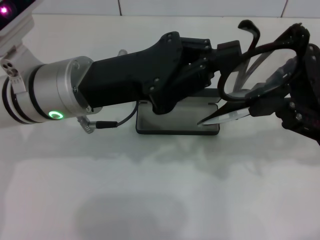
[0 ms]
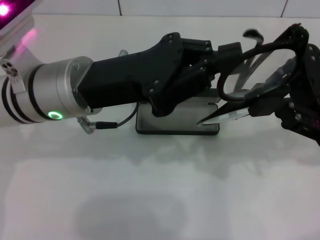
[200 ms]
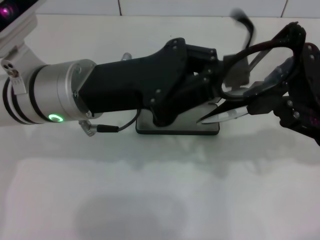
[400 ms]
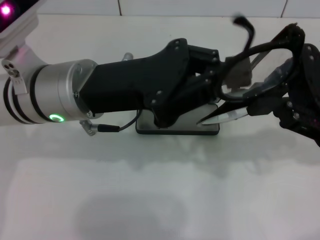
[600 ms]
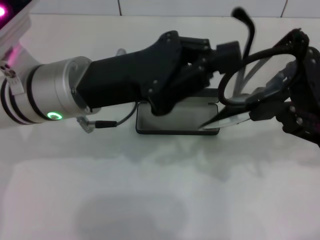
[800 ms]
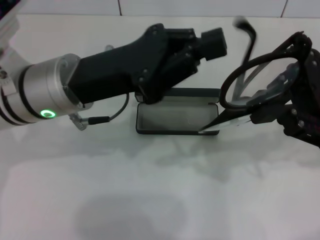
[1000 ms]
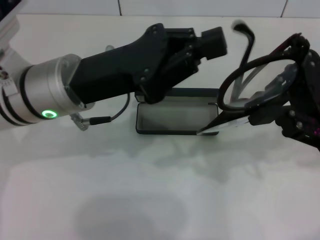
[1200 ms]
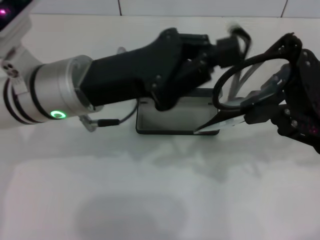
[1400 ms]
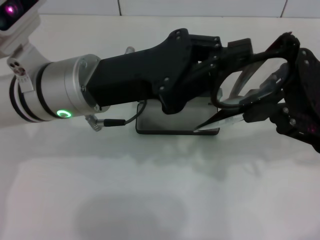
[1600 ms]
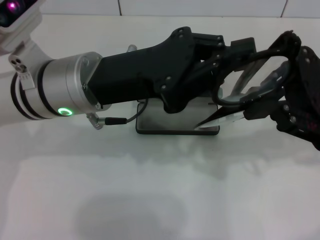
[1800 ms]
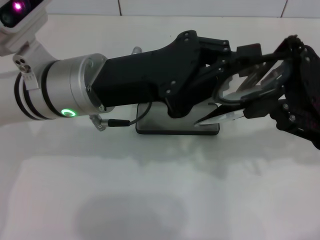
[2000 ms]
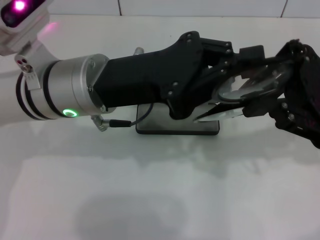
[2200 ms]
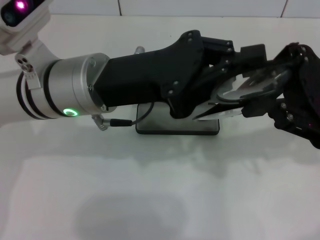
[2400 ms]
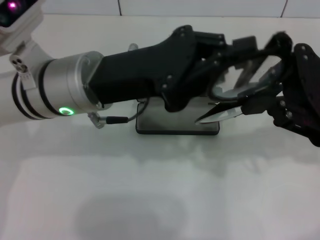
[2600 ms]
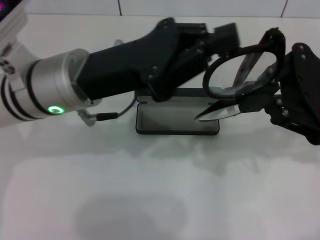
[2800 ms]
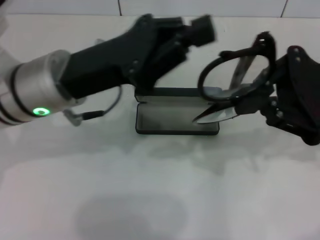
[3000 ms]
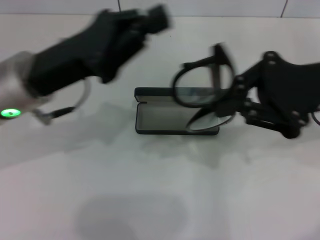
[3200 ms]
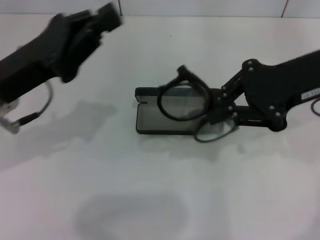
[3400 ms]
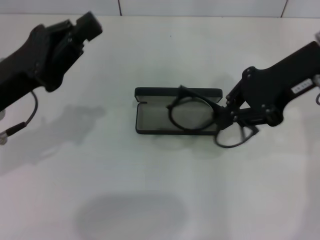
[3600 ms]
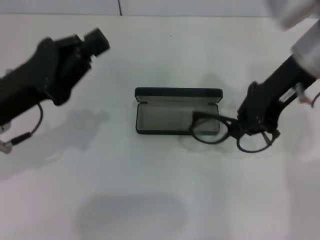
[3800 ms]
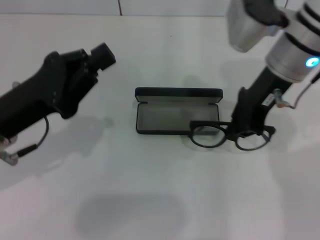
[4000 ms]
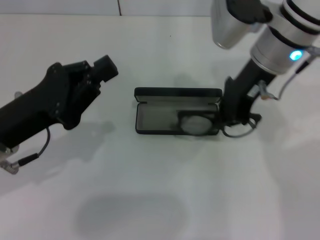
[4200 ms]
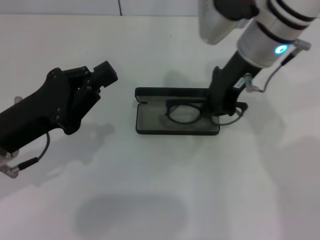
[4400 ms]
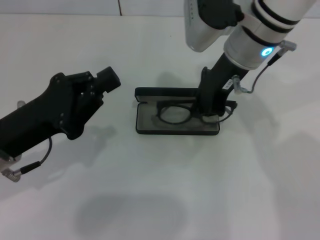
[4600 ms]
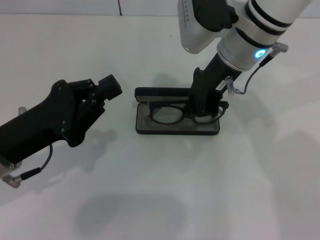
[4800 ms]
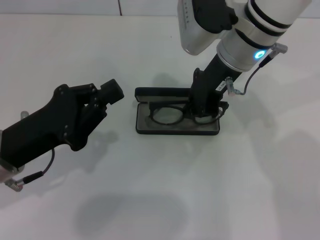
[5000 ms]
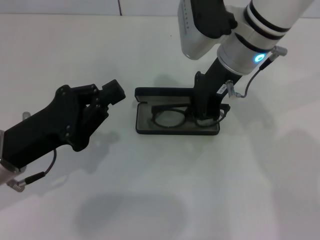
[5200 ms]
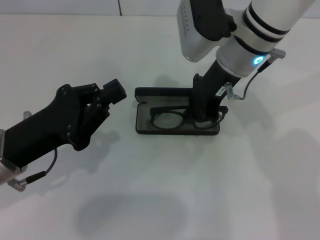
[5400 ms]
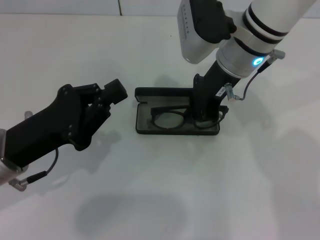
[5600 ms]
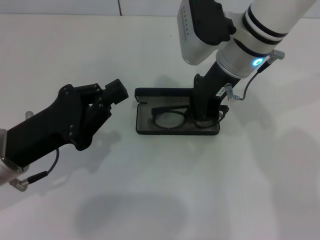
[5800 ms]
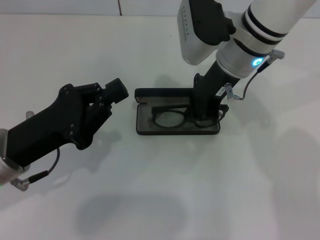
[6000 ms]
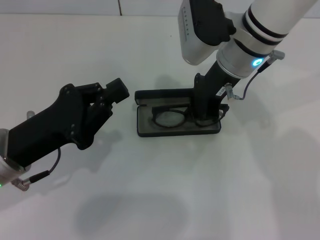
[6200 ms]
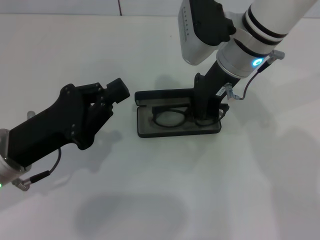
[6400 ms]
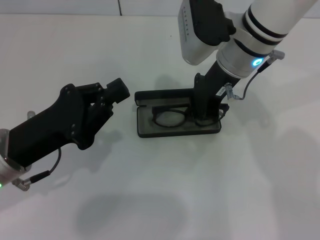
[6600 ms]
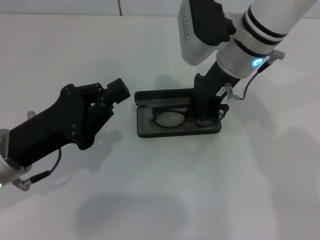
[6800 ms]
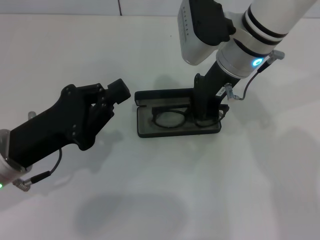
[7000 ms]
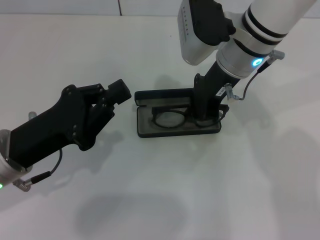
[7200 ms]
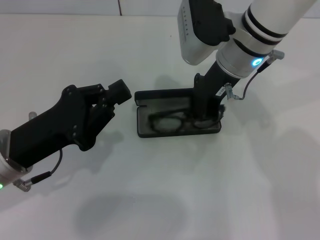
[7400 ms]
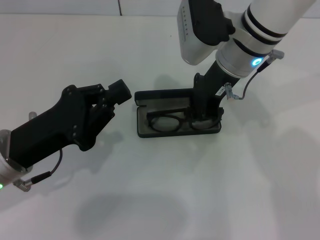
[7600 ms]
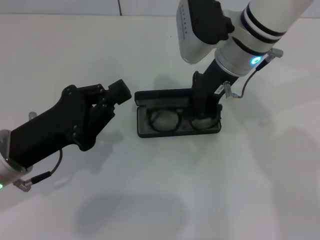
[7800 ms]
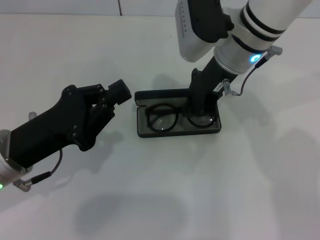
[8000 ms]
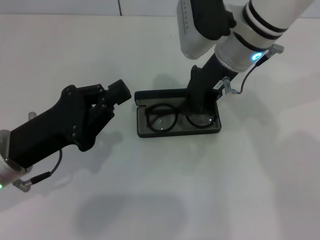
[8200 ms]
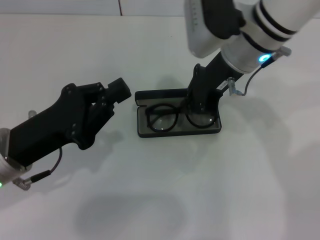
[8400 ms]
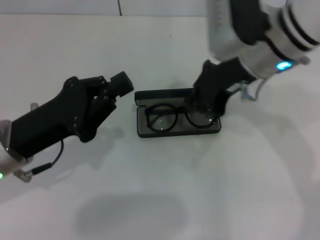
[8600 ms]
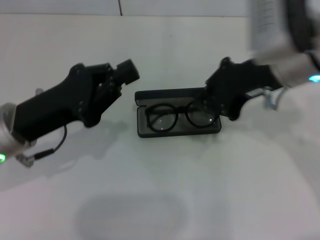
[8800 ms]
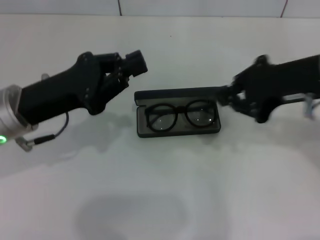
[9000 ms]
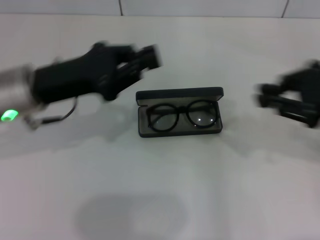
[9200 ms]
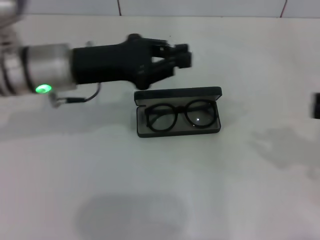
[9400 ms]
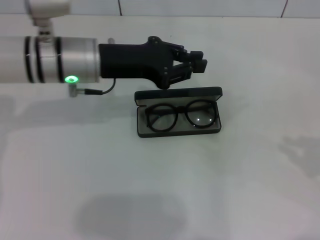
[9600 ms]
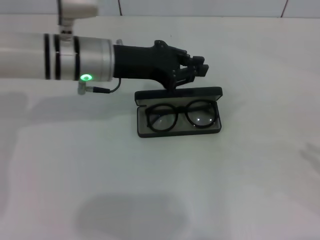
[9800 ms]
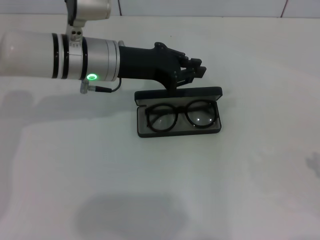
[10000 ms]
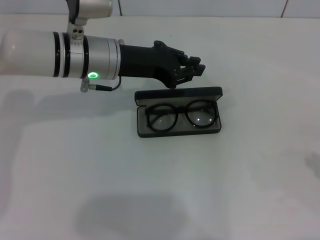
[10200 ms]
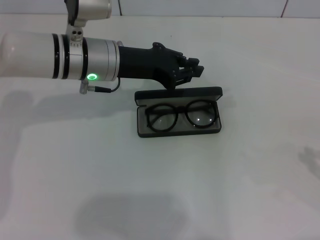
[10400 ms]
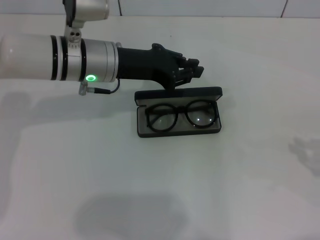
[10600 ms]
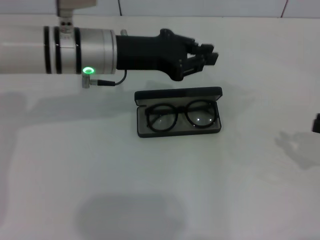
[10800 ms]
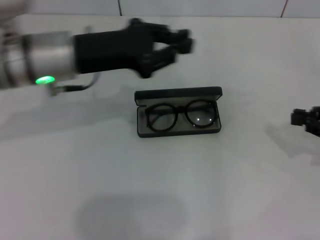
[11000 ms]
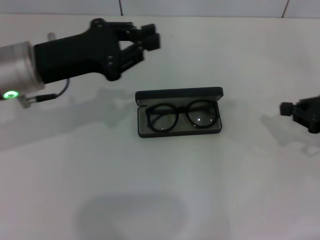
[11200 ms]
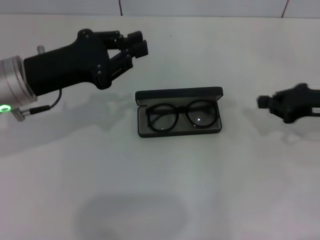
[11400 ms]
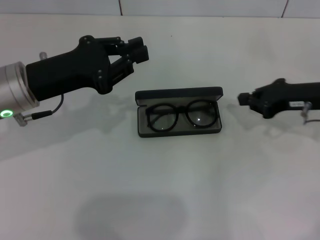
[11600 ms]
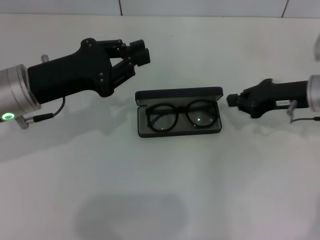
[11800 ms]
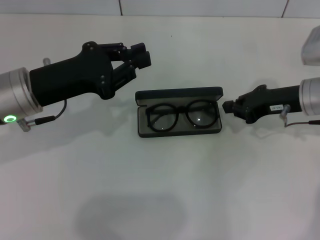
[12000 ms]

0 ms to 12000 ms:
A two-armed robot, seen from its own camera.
Step, 0 ms to 2600 ms: Fold the frame with your left hand.
Step, 3000 ms to 8400 ms: Put the glasses into the case with your right hand.
0 ms to 1600 ms: The grippers make only small movements.
3000 ms to 4400 ms: The right gripper is displaced to the left and forward by approximately 15 cm. The left gripper shifts roughly 10 cm to the left, downward and backward.
6000 ms to 7600 ms: Both grippers stay about where they are.
7600 ms to 9000 ms: The right gripper heads to the right and backward, covering some 15 cm. The left gripper ends up some 5 cm from where it was.
9000 ms to 10400 ms: The left gripper travels forward and to the right by some 15 cm, while the right gripper is displaced to the right, downward and backward by some 25 cm.
10400 ms to 12000 ms: The right gripper heads forward and to the left, covering roughly 25 cm, while the left gripper travels to the left and backward by approximately 10 cm.

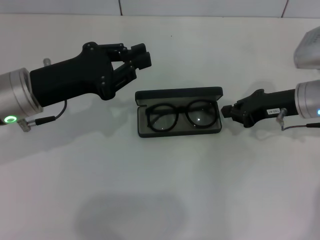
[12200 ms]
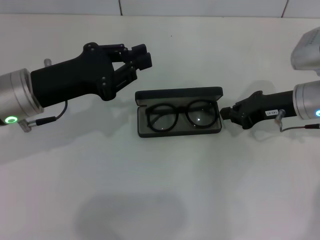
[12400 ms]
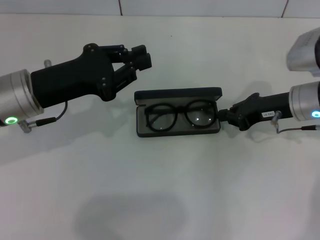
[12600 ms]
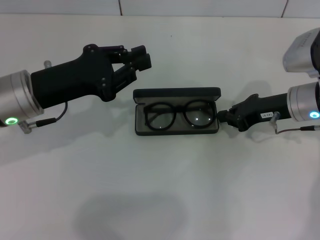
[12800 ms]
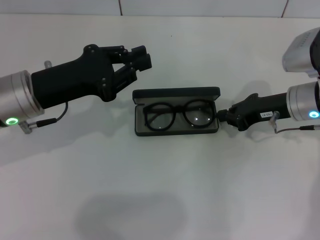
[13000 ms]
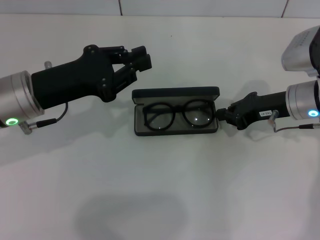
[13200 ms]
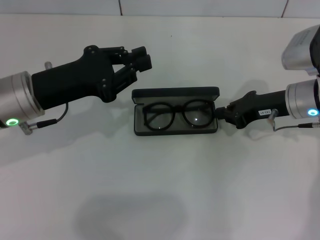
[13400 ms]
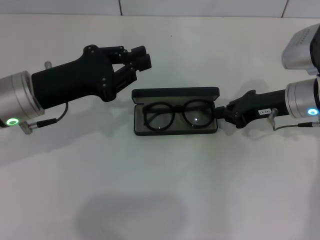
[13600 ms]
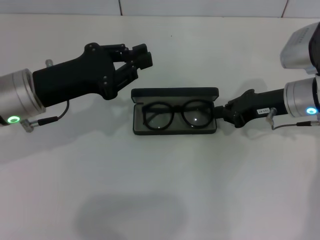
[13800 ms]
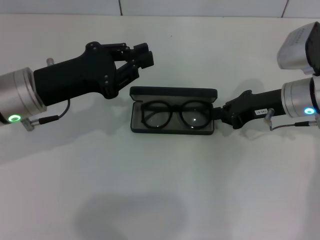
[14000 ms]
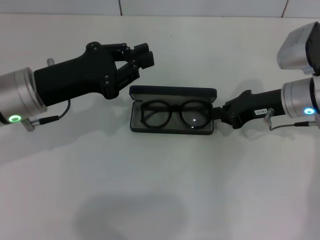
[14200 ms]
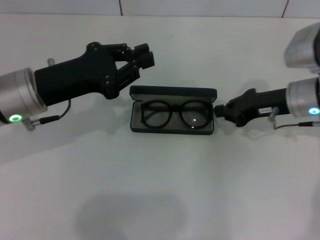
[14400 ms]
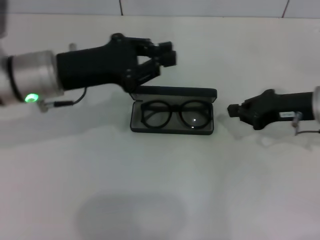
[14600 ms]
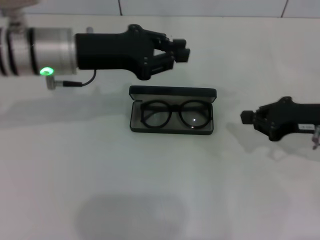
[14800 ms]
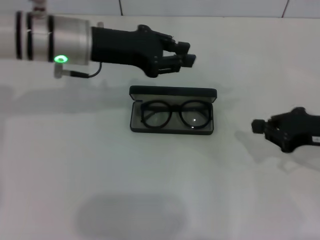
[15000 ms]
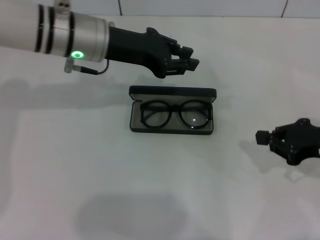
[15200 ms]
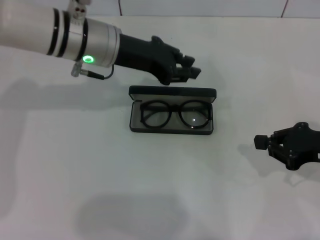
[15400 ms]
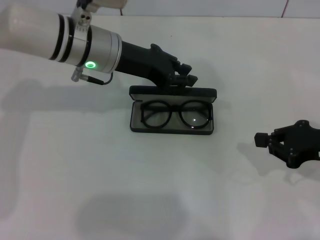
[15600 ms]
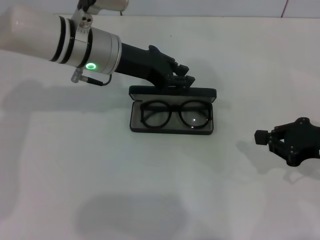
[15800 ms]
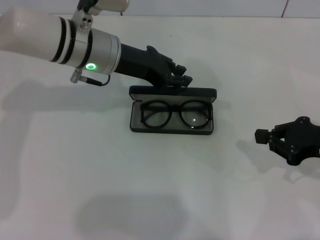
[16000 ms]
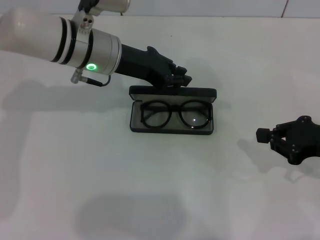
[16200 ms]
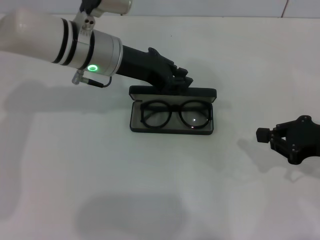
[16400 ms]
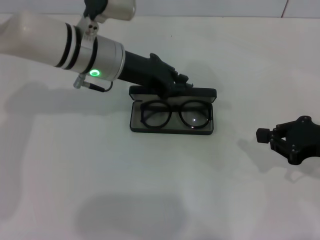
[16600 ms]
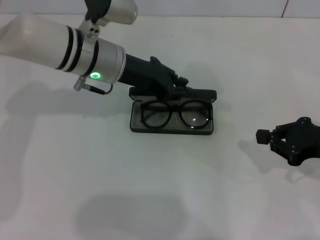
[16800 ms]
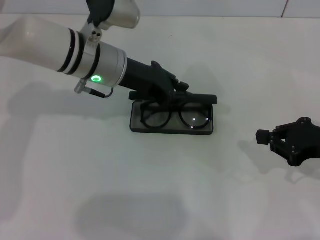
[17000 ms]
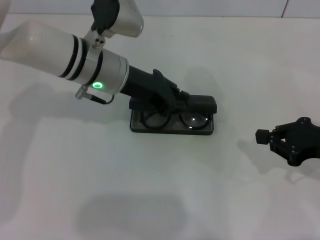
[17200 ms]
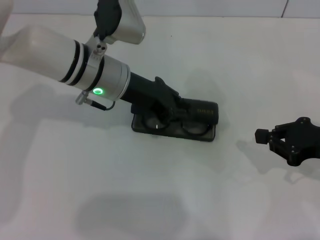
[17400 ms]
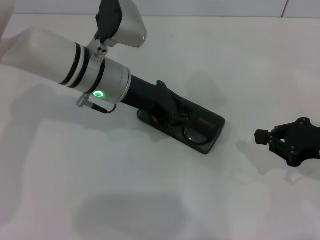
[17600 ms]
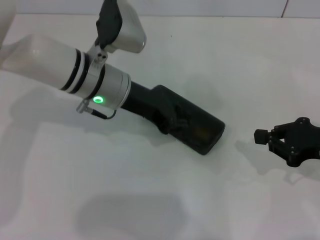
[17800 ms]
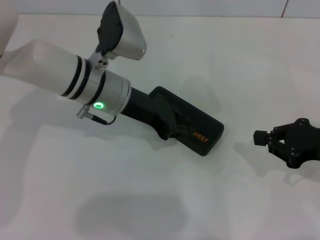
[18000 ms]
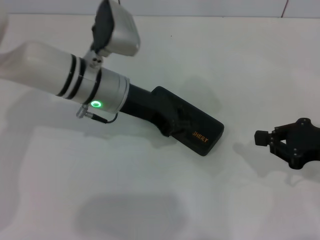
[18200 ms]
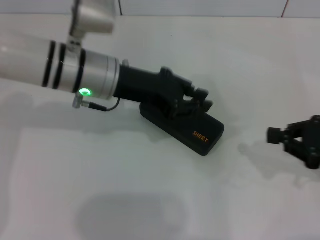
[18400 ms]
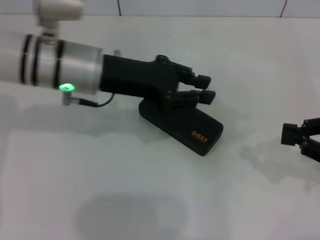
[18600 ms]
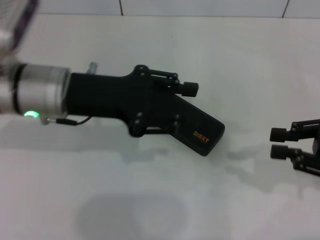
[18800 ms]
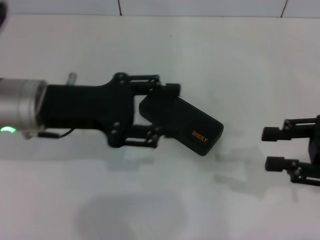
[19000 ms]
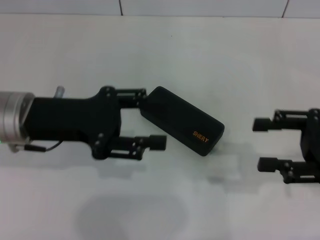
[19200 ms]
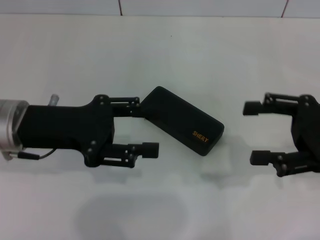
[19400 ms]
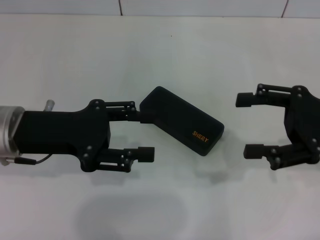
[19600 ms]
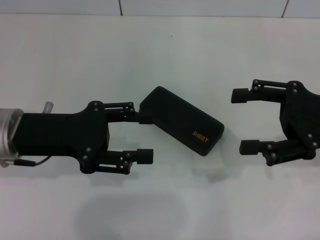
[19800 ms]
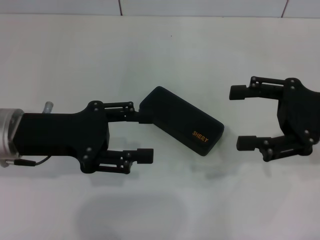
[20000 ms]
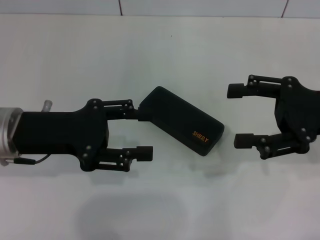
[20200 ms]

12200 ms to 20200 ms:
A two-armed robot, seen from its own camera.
Step, 12200 ms to 18200 ms: Close the glasses case with your left hand.
12200 ms to 13800 ms: There are only small adjustments of the grippers.
13800 ms to 15400 ms: The left gripper is displaced to the right and forward by roughly 15 cm; the right gripper heads backward and to the right, covering approximately 15 cm.
15400 ms to 17000 ms: There are only small adjustments of the grippers.
17000 ms to 18600 ms: The left gripper changes place by roughly 5 cm.
18600 ms to 20200 ms: The right gripper is displaced to the left by about 5 cm, and opens. Meanwhile the left gripper goes approximately 10 cm to the left and backward, and opens its fingers.

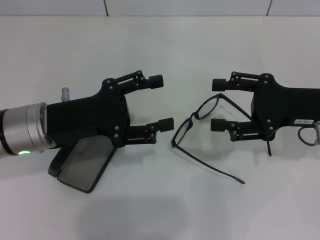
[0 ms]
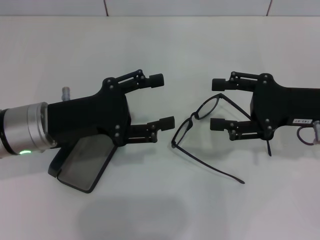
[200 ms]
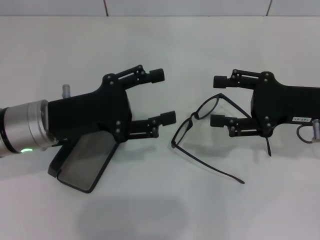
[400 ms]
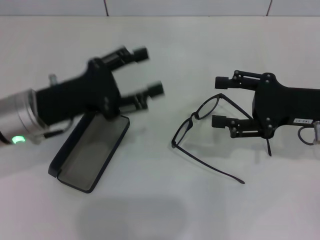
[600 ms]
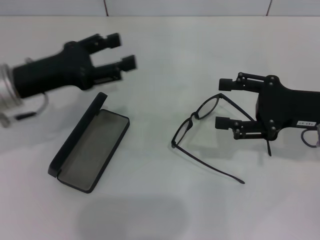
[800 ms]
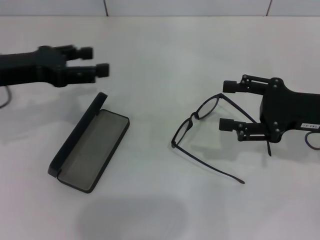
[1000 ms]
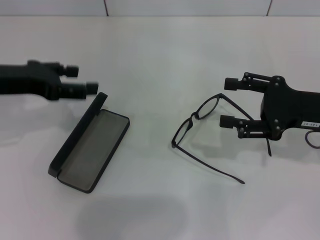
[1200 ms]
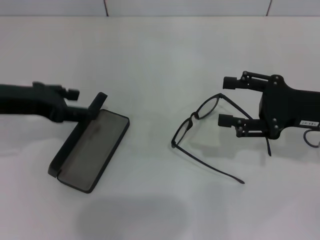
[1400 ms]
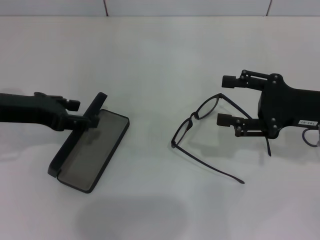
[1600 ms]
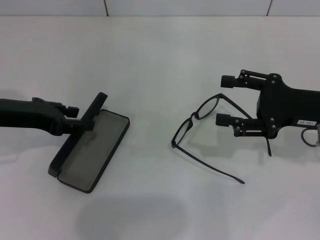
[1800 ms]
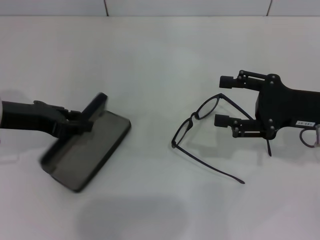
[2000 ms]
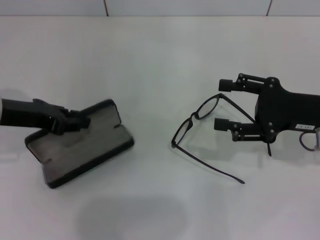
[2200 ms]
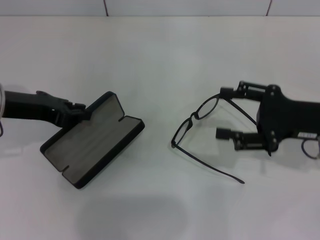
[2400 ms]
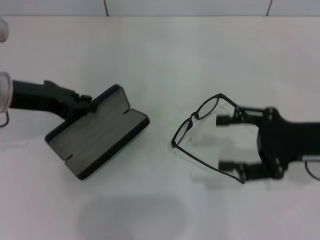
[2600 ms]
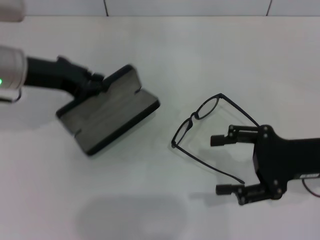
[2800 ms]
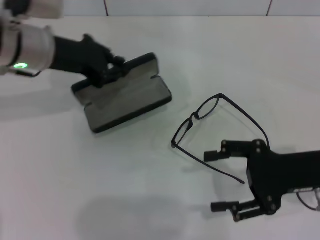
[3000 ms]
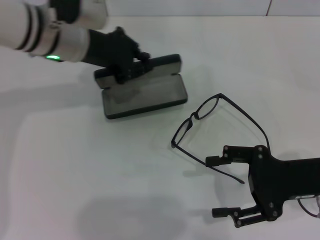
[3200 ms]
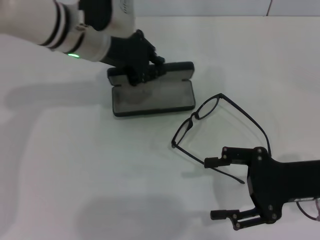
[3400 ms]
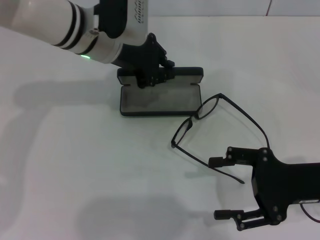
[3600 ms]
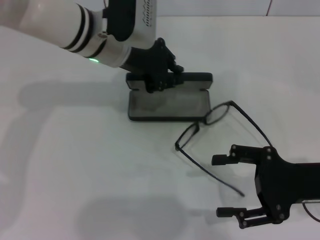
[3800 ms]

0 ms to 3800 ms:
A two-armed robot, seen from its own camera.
Step, 0 ms to 2000 ms: Grab the glasses case with your left hand.
0 ms to 1200 ms: The left gripper travels to the left and upward by approximately 10 cm.
1200 ms to 2600 ms: The left gripper closes its fingers.
2600 ms to 3800 ms: The left gripper goes about 15 cm to the right and forward.
